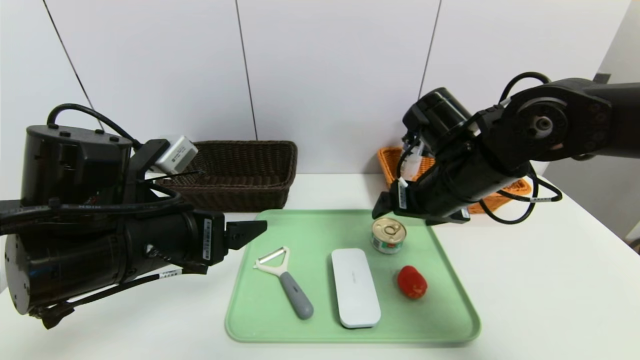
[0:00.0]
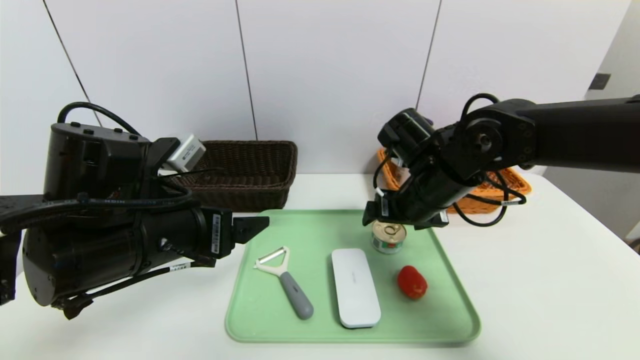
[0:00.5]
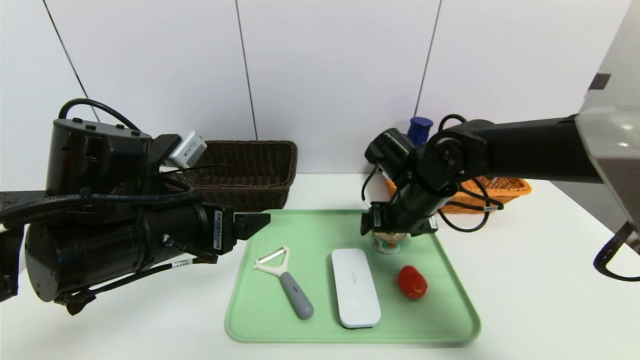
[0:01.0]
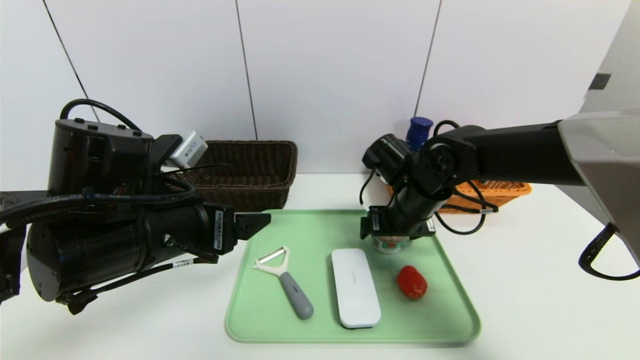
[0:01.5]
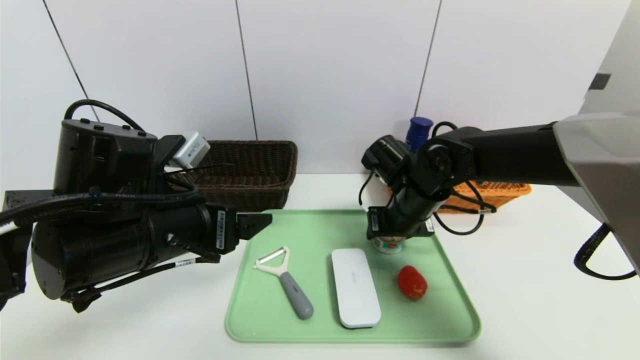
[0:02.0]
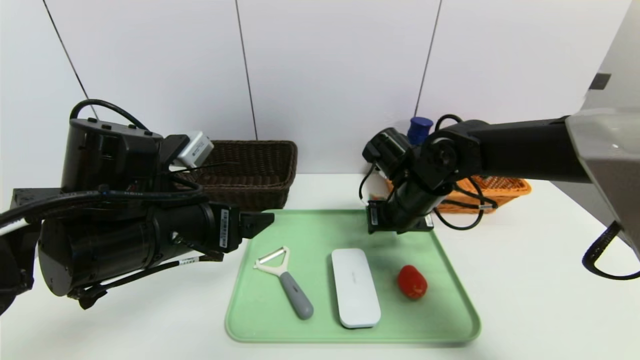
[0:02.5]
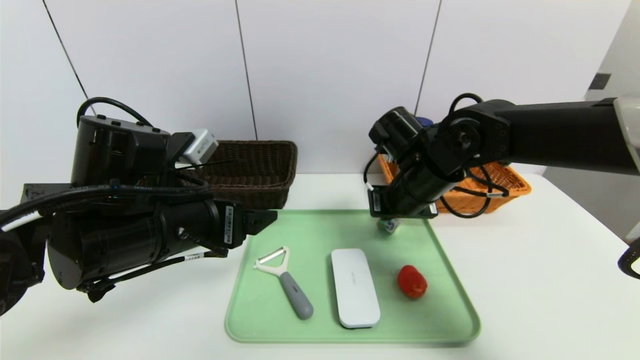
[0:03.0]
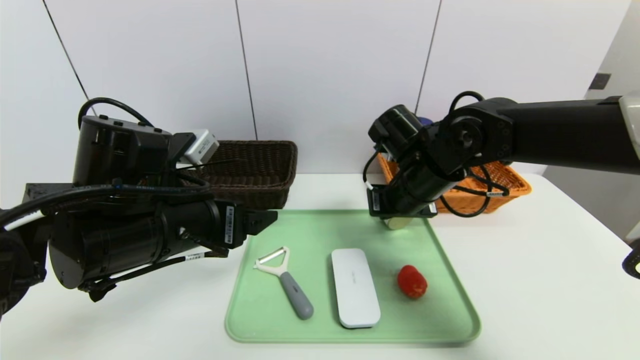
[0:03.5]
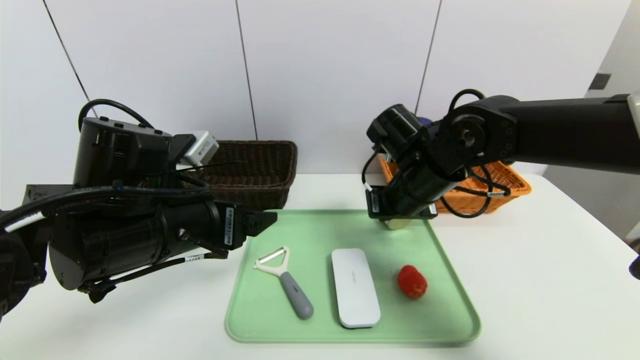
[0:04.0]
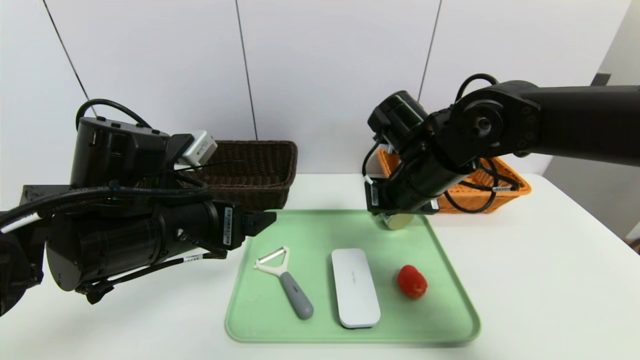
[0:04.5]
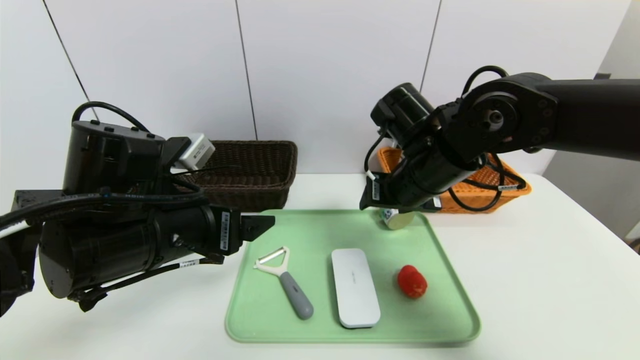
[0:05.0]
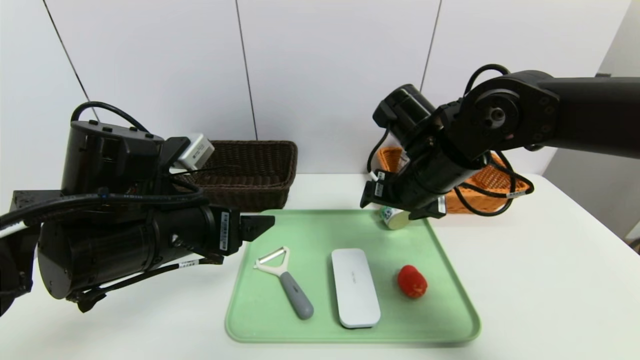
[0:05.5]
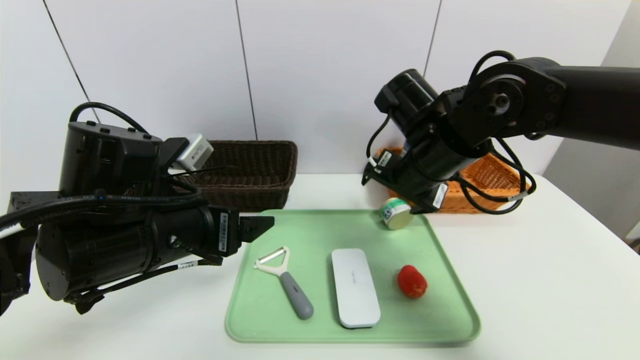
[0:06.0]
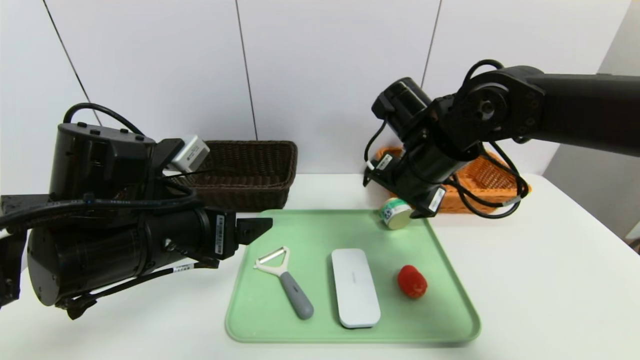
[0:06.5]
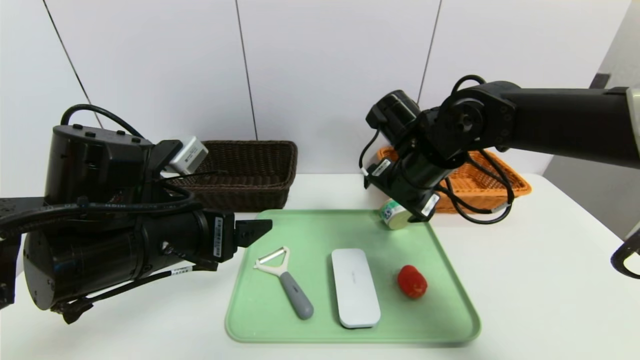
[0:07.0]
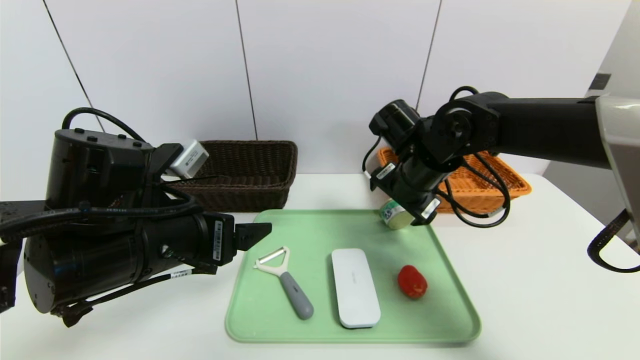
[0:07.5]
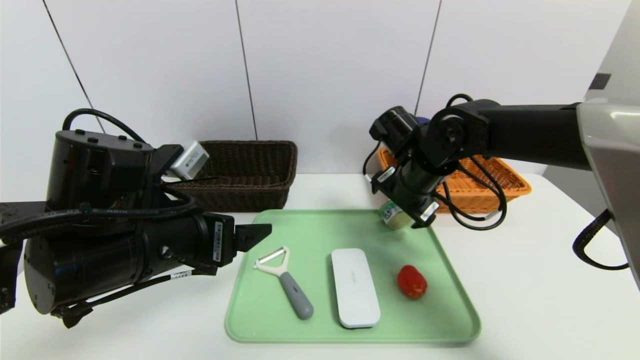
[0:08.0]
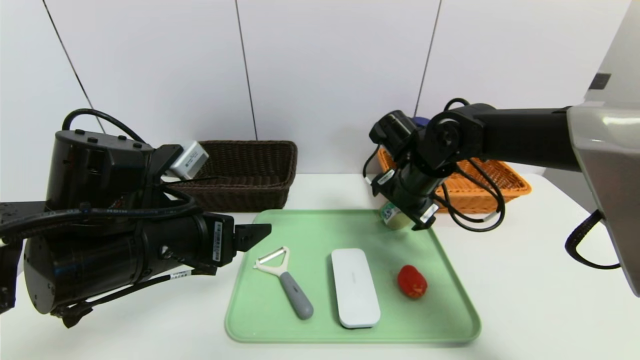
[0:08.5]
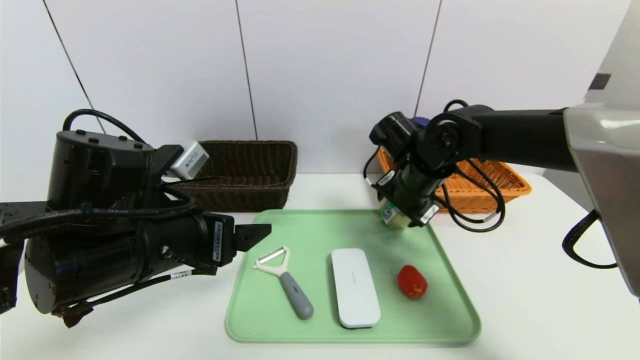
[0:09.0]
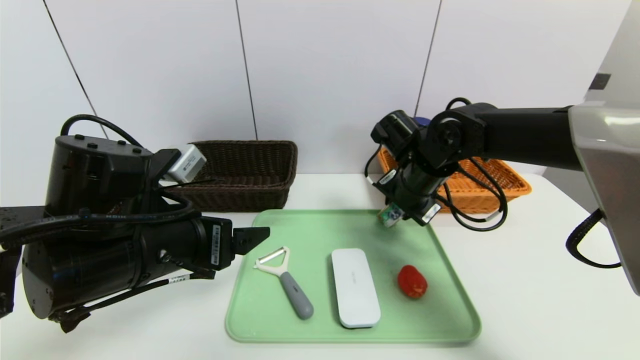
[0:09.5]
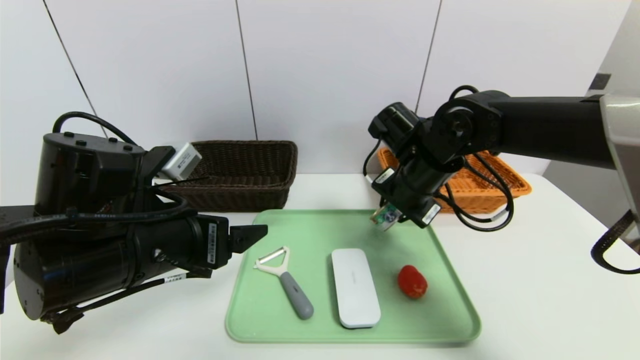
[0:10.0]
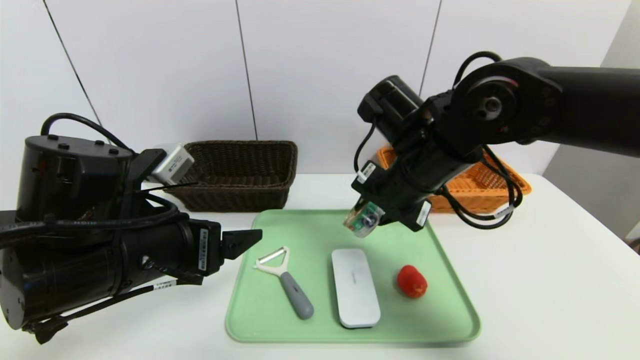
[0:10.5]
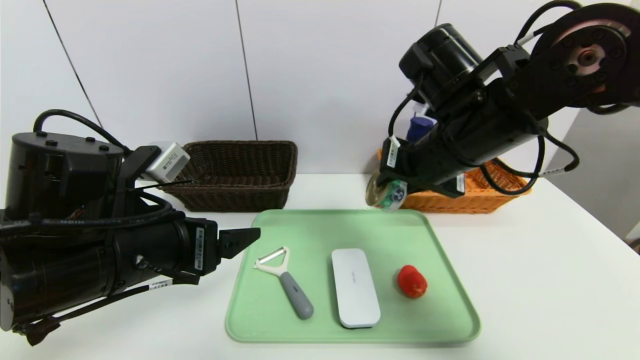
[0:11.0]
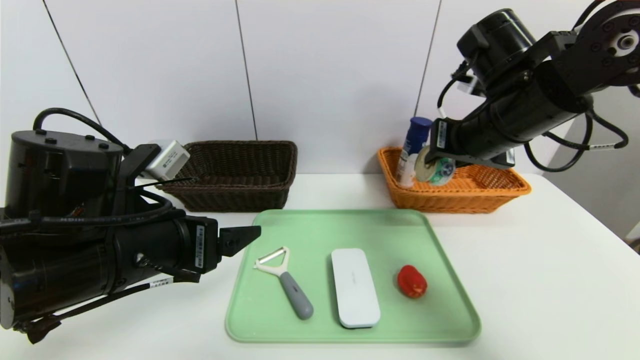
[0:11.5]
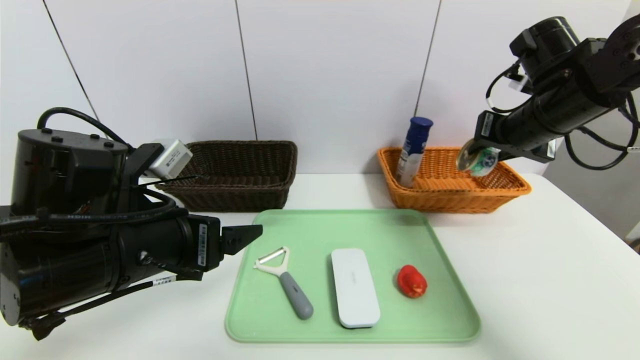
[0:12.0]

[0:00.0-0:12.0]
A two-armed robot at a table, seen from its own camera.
Task of the whole recording: place the food in the right basket with the right gripper, and place the non food items in the left basket with the left gripper.
0:00.0 to 0:02.0: The right gripper heads downward, covering about 5 cm.
0:02.0 to 0:04.0: The right gripper ends up roughly 5 cm from where it was, and closes up.
0:04.0 to 0:06.0: The right gripper opens up.
0:06.0 to 0:08.0: The right gripper heads downward, covering some 5 cm.
0:08.0 to 0:10.0: The right gripper closes.
0:10.0 to 0:12.0: The right gripper shifts some 20 cm to the right and upward.

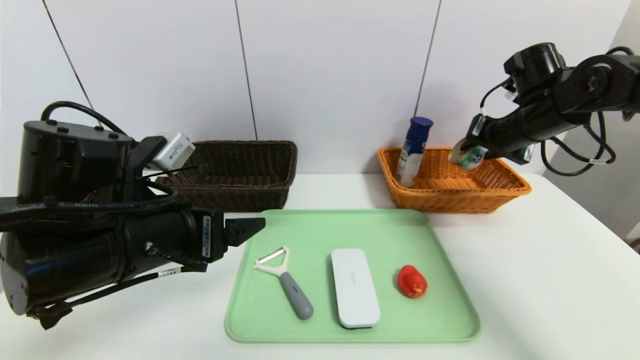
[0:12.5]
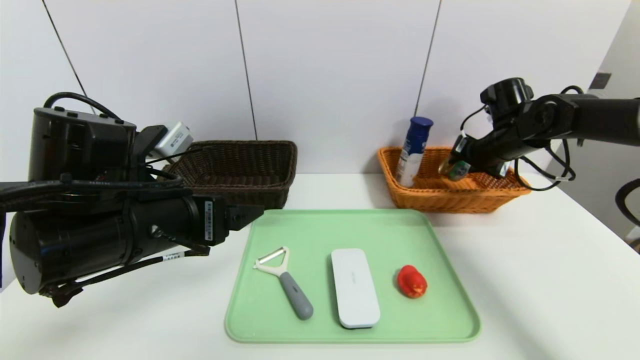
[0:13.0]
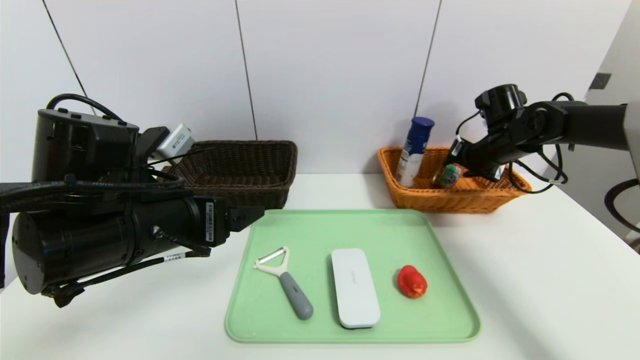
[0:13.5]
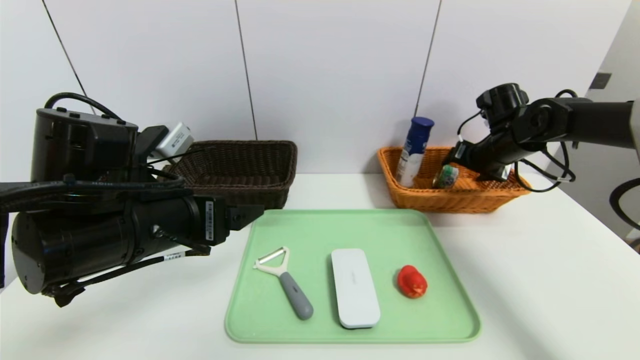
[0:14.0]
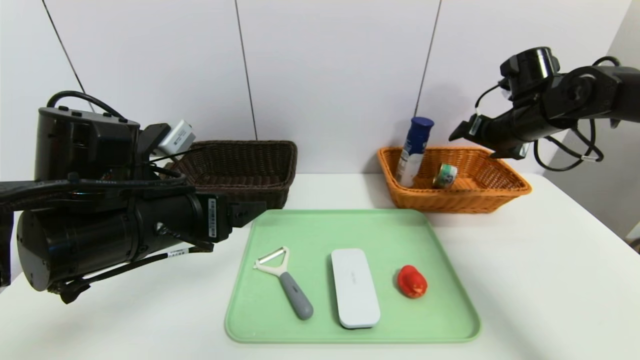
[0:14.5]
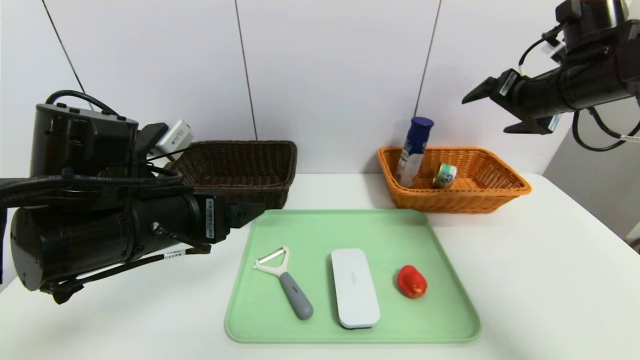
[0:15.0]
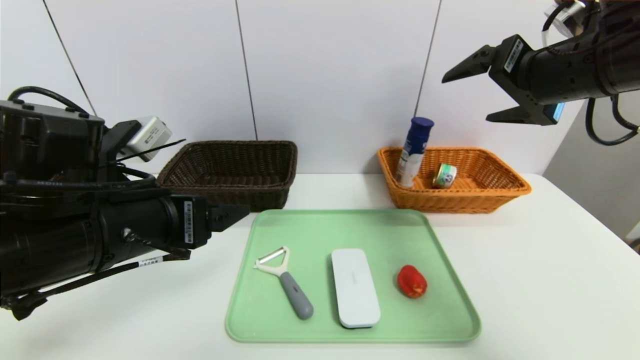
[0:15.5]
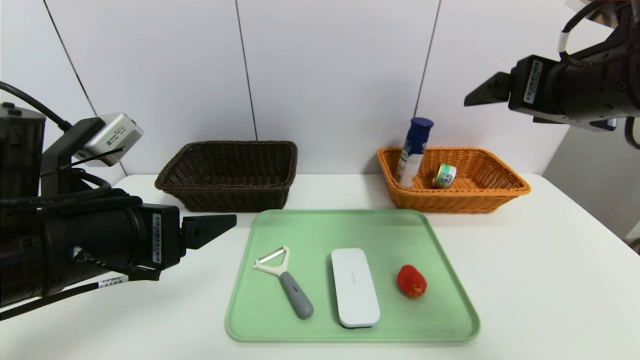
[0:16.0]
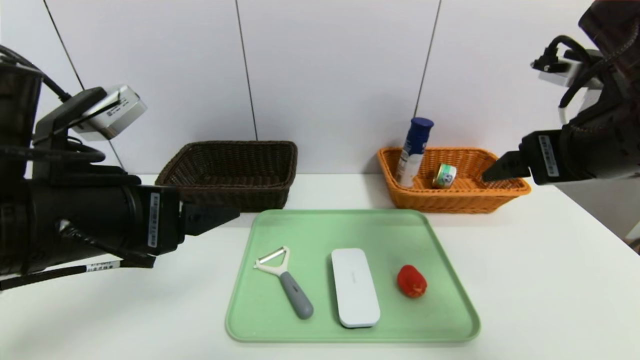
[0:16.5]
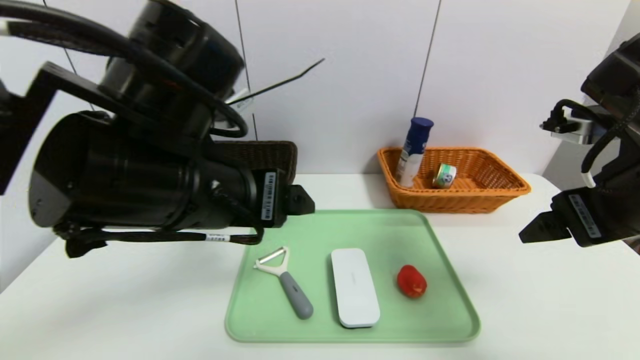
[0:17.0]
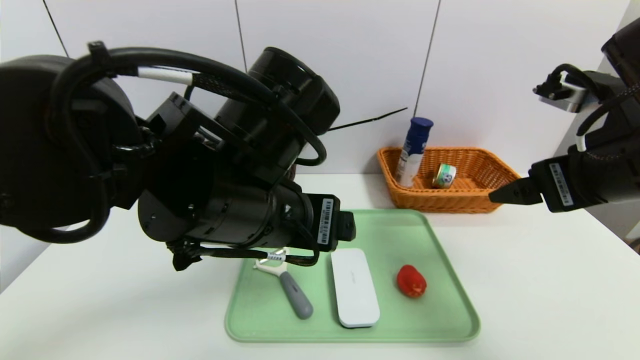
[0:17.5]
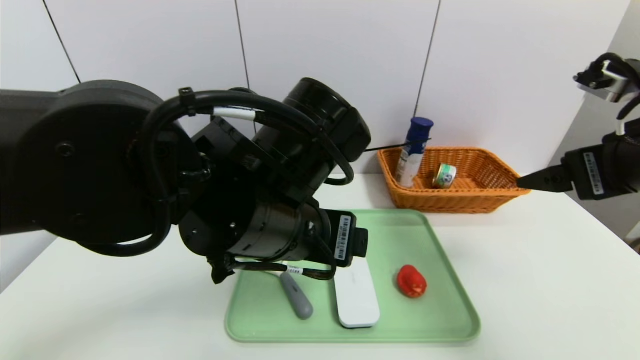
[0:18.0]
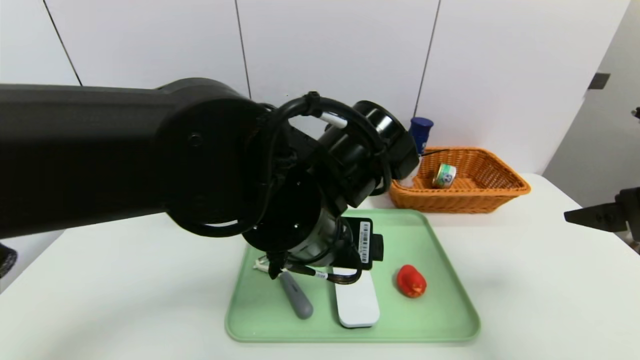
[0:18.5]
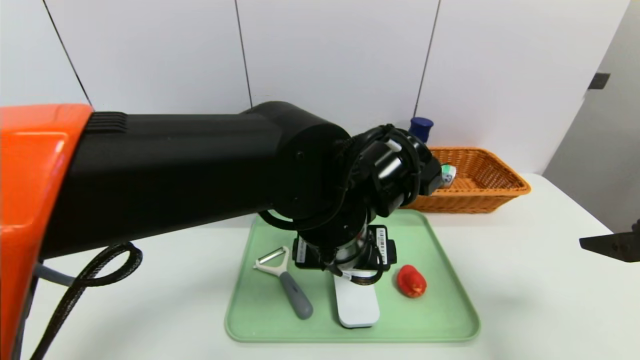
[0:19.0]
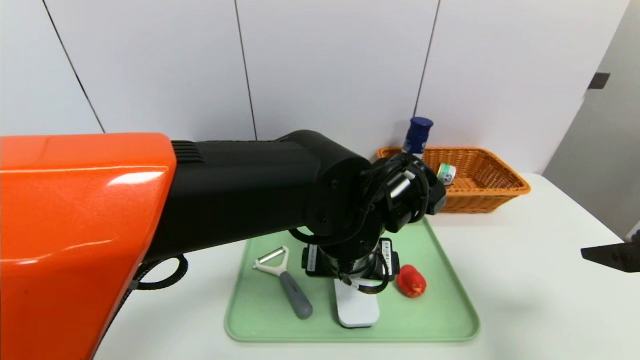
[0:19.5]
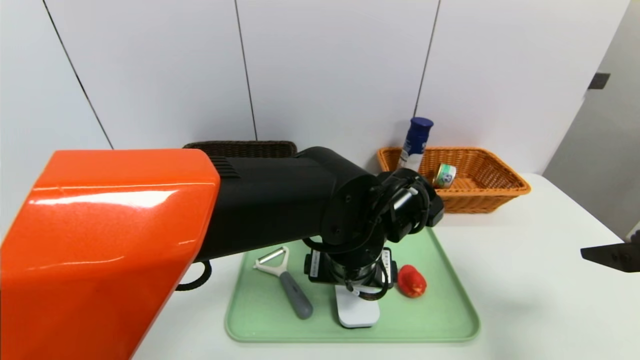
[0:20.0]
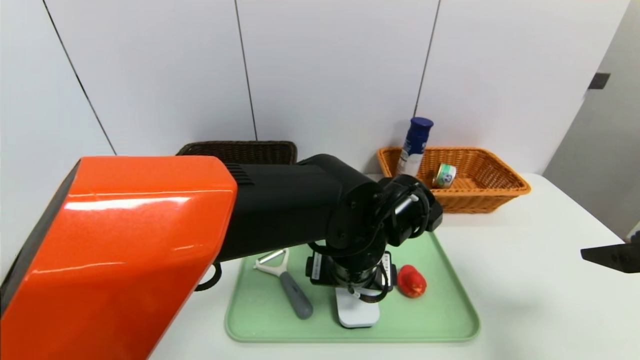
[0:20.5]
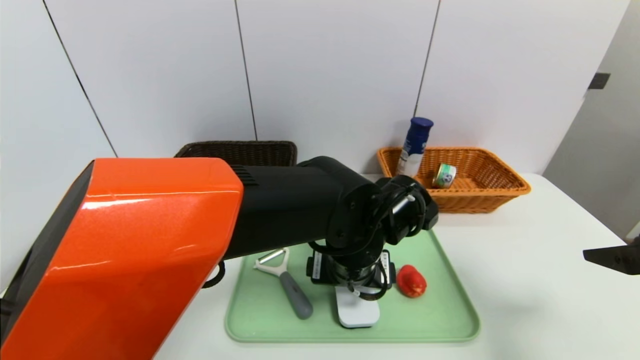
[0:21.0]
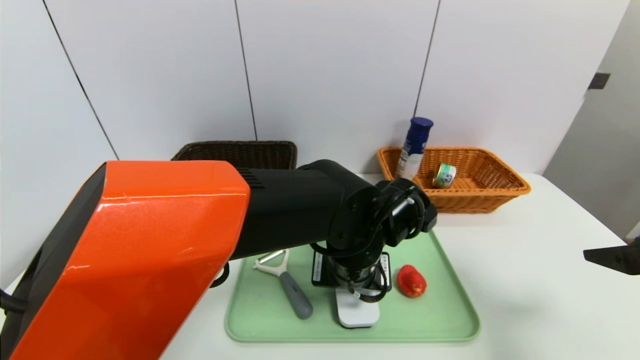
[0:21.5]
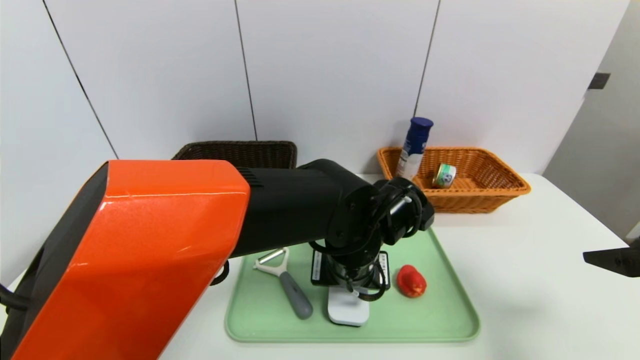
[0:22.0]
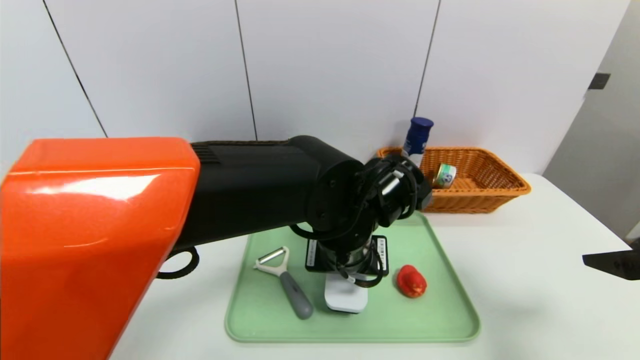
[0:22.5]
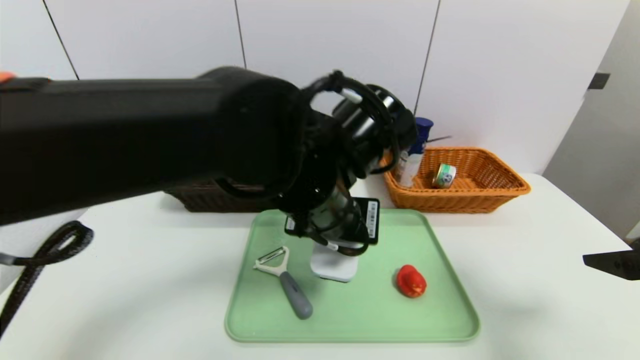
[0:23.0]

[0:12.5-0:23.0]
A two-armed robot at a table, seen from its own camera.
Task of the whole recording: place the food in the right basket with the right gripper, and place the non food items in the left basket with the left gripper.
Step, 0:12.5 to 0:14.5: Grasp the can and put it in the right basket.
0:12.5 to 0:14.5: The right gripper opens up.
0:14.5 to 0:16.5: The right gripper travels backward by approximately 20 cm. Meanwhile the left gripper is displaced upward and backward by approximately 5 cm.
0:16.5 to 0:19.0: The left gripper goes roughly 20 cm to the right; the right gripper is displaced to the right, backward and downward by about 10 cm.
0:19.0 to 0:21.0: The left gripper travels downward by approximately 5 cm.
0:21.0 to 0:23.0: The left gripper travels upward by approximately 10 cm, and closes its fingers.
